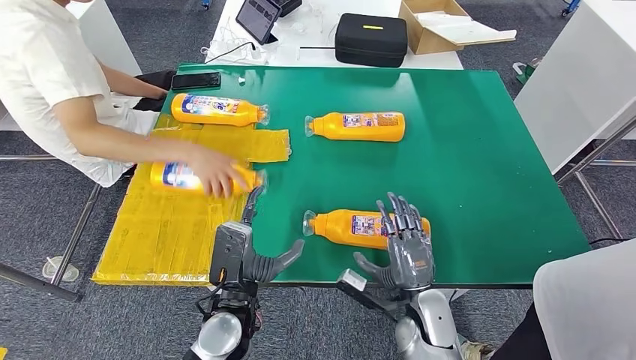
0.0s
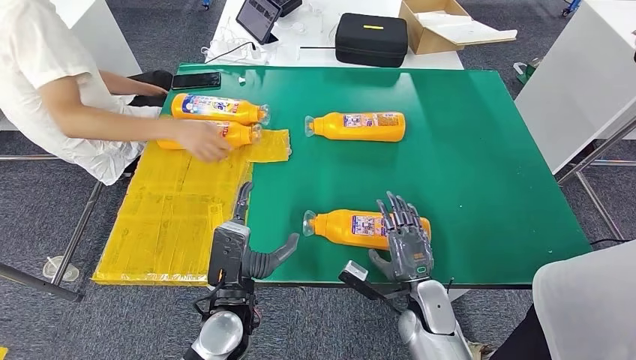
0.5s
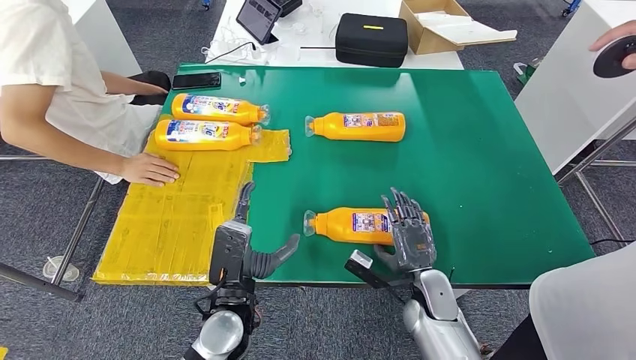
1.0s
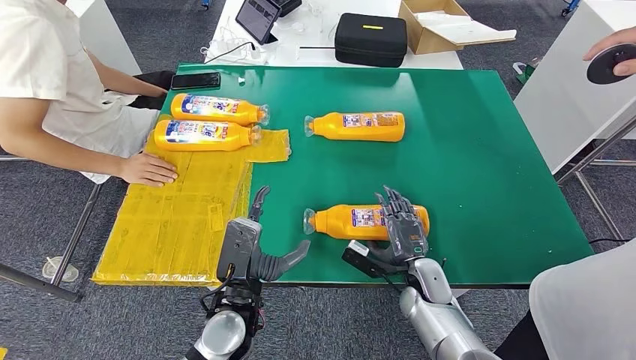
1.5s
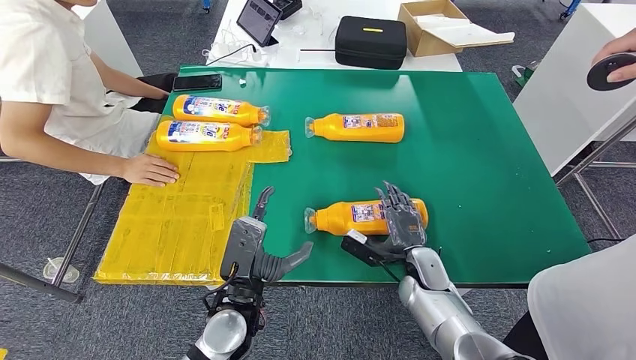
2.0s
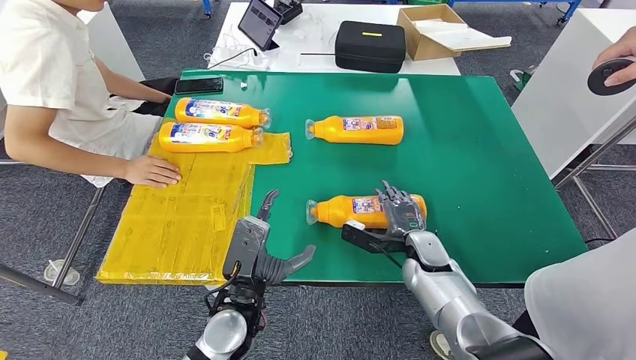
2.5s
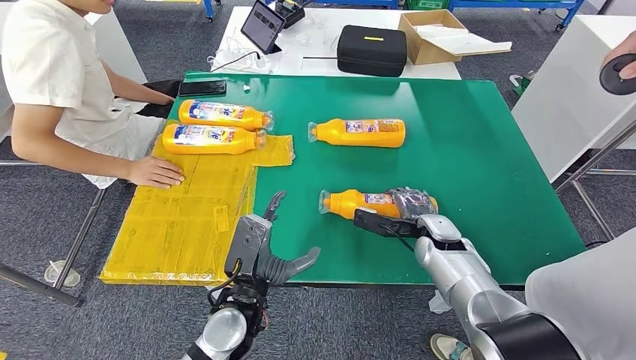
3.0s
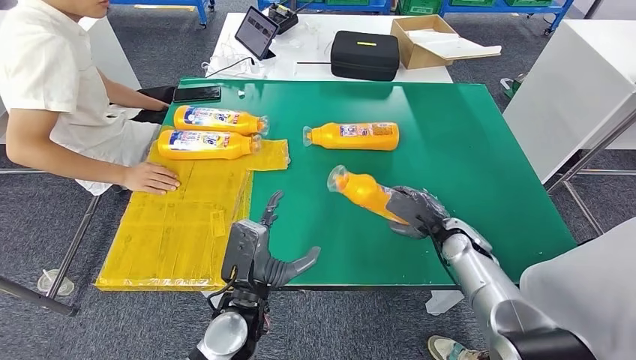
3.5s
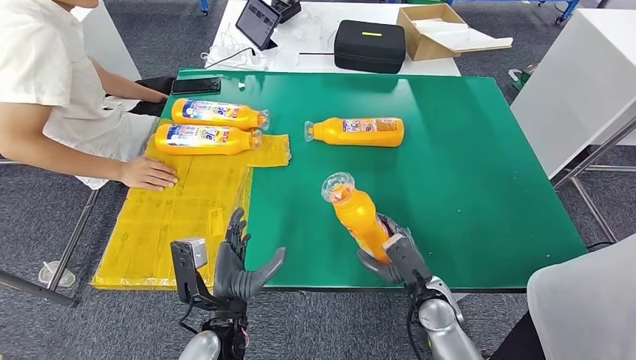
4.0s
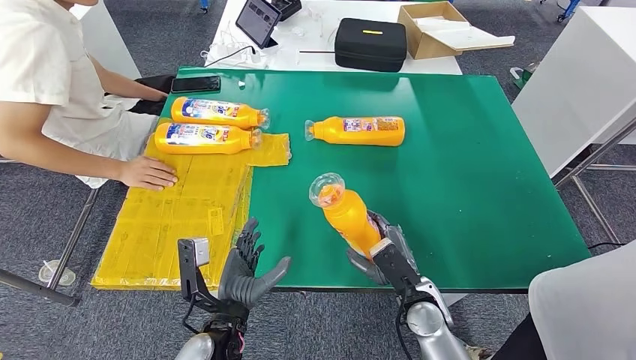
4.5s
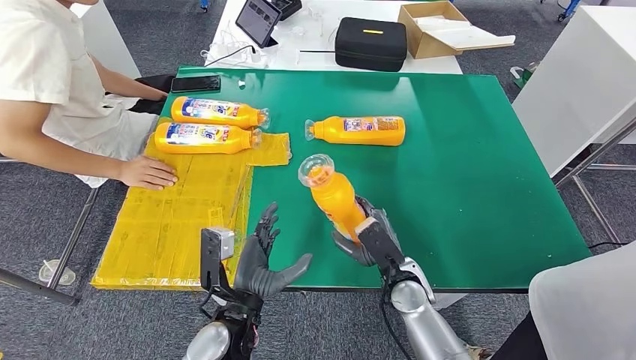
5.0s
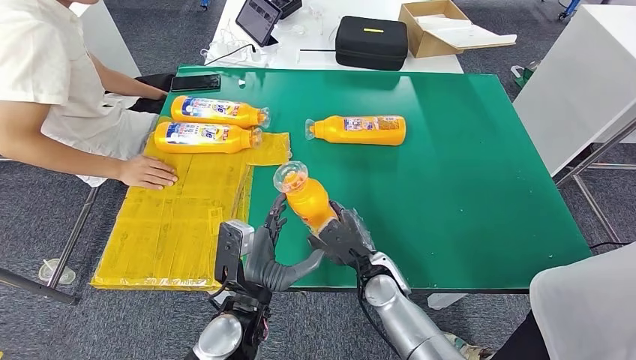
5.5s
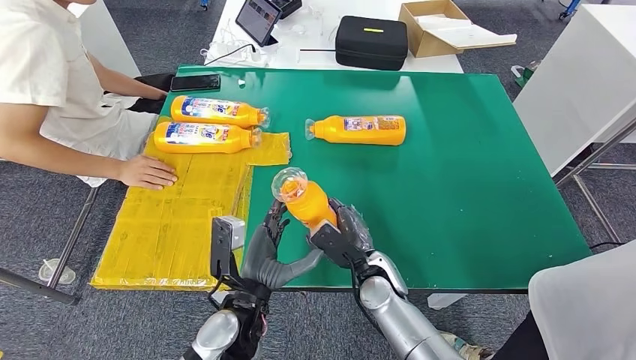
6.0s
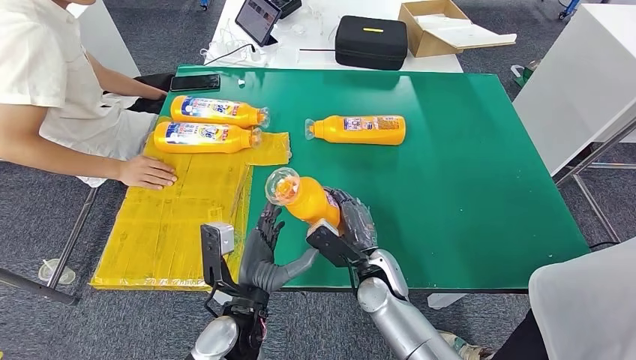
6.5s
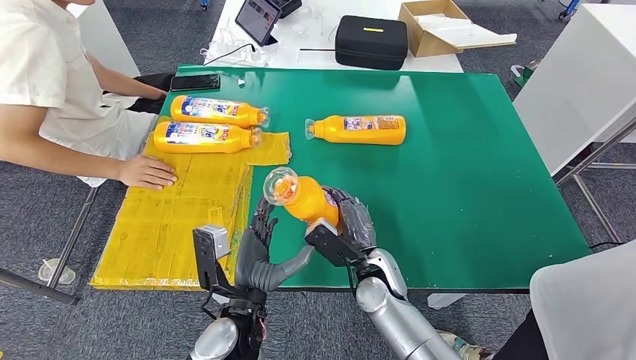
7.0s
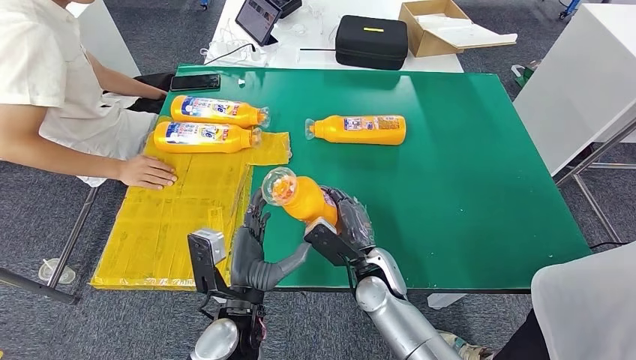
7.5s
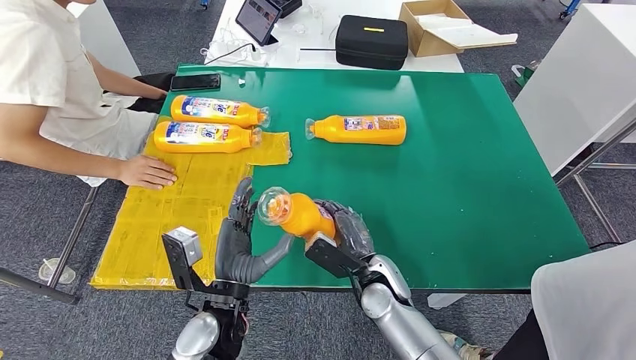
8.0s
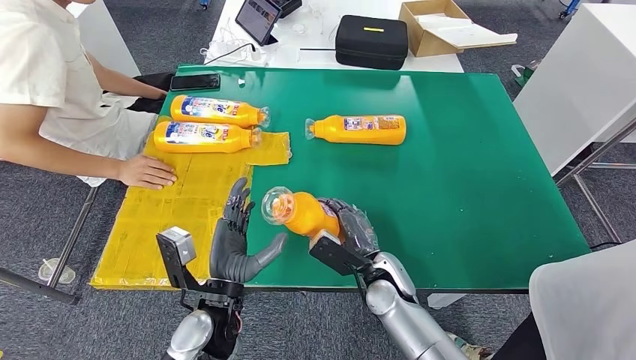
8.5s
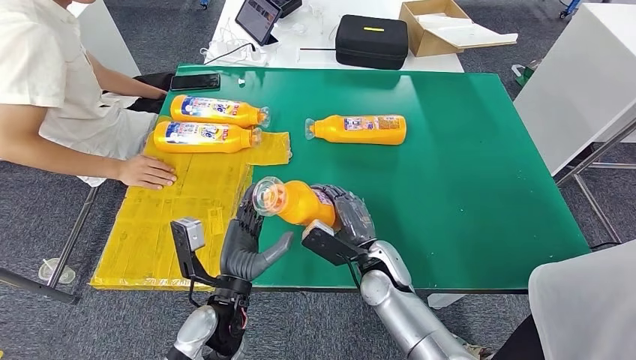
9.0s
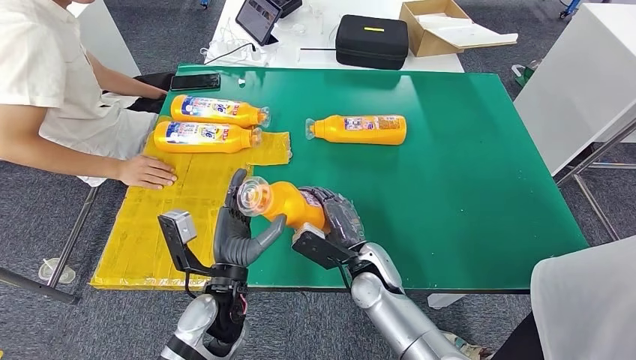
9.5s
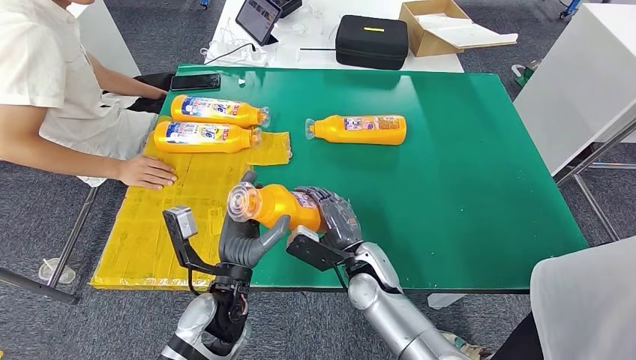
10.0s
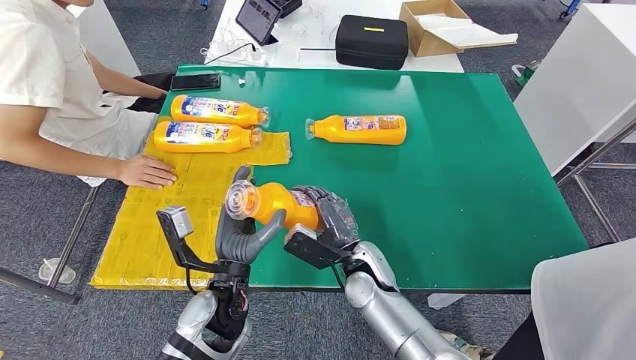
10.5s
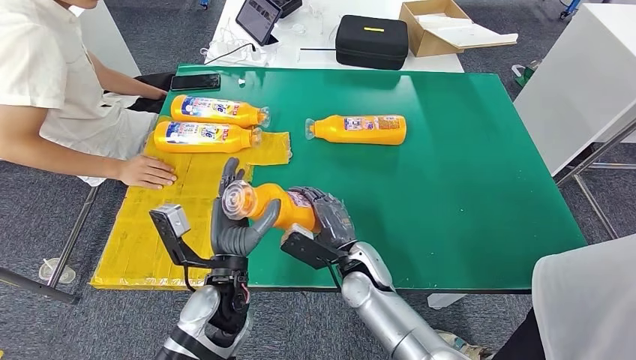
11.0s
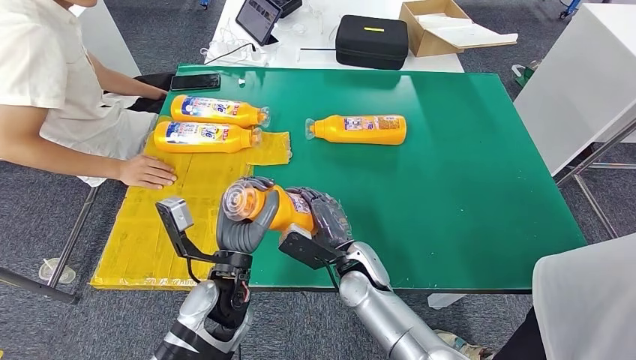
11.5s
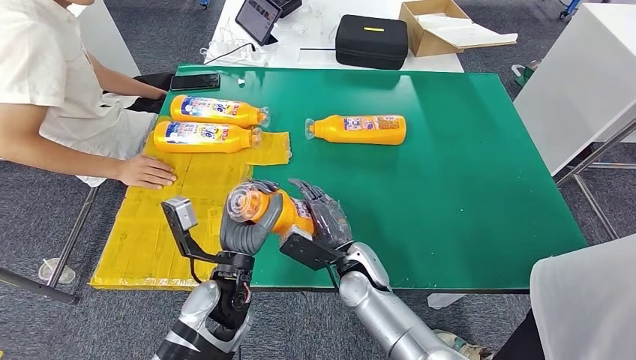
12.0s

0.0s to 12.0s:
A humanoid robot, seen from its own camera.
Step, 0.0s to 4.5s: Pick up the fast-moving consumer goods bottle from the table.
0.0s to 2.0s: The right hand heads forward, covering about 10 cm.
4.0s to 6.0s: The right hand goes approximately 10 cm to the left.
6.0s to 10.0s: The hands make only small movements.
10.0s to 12.0s: The hands stay close to where they were, moving slightly.

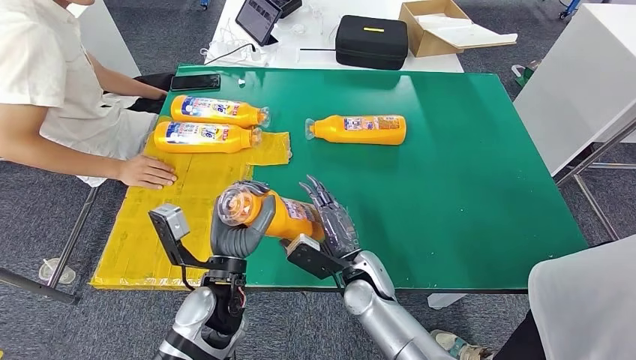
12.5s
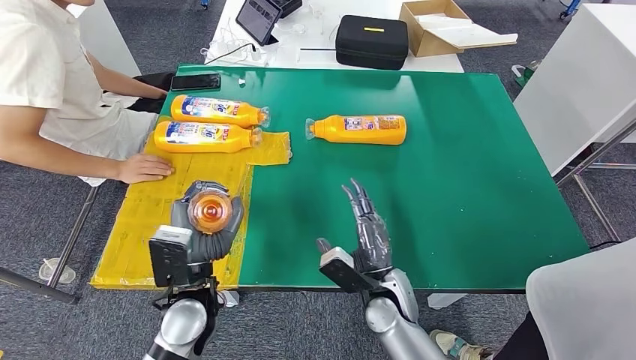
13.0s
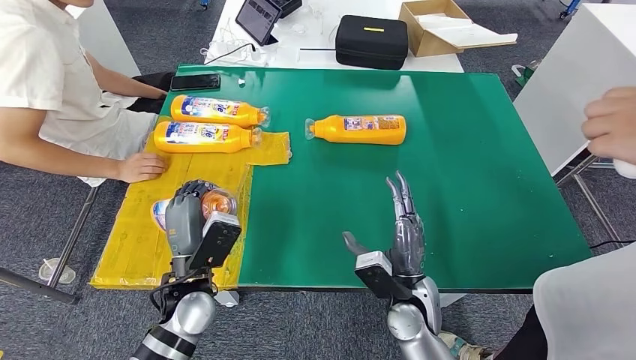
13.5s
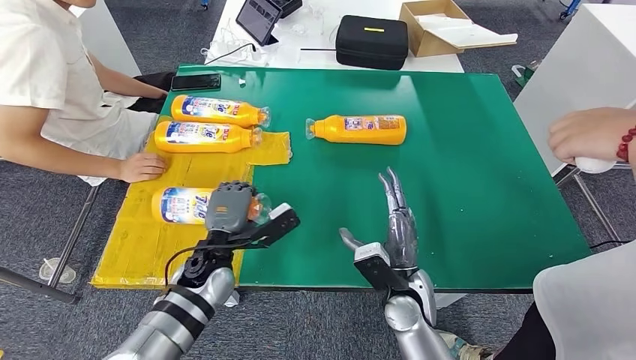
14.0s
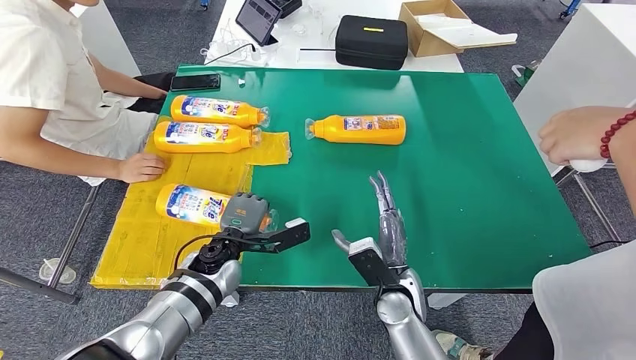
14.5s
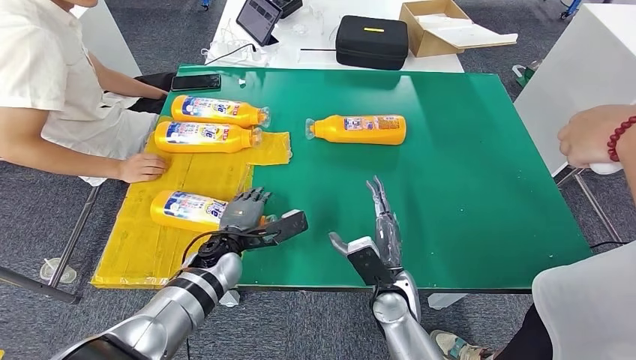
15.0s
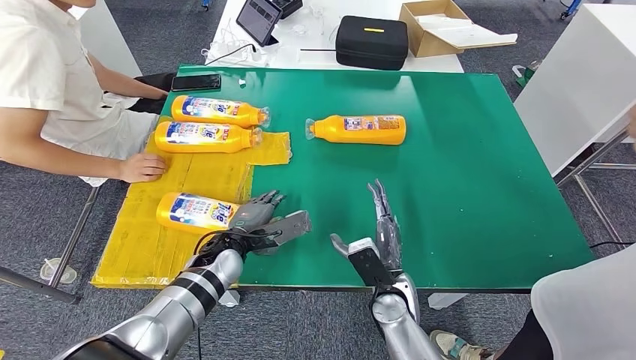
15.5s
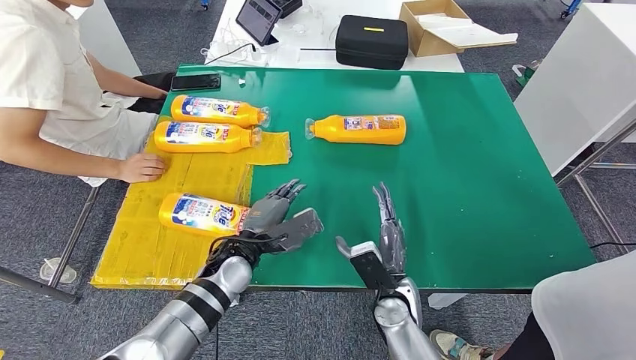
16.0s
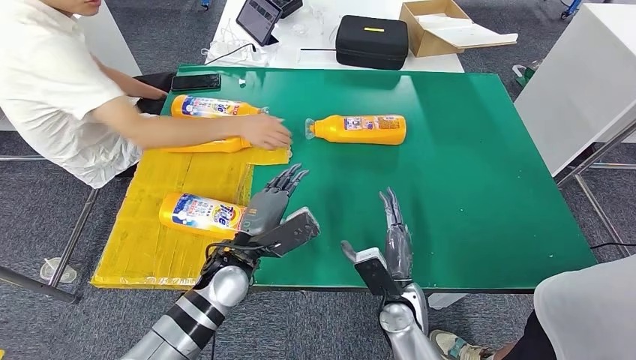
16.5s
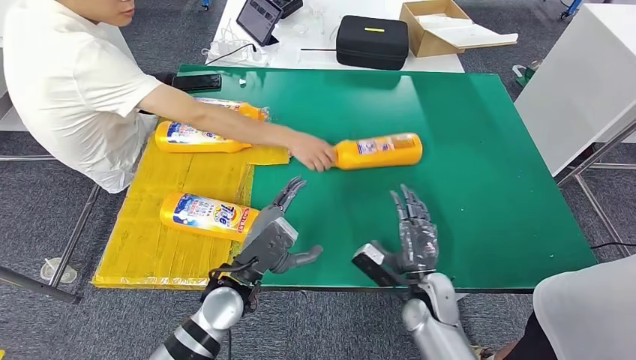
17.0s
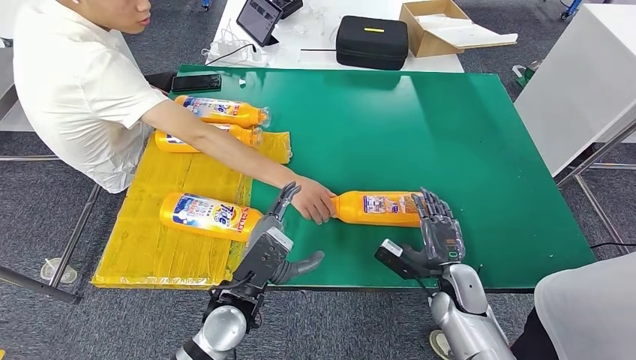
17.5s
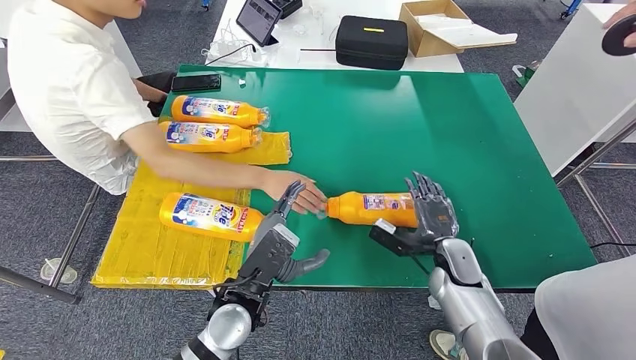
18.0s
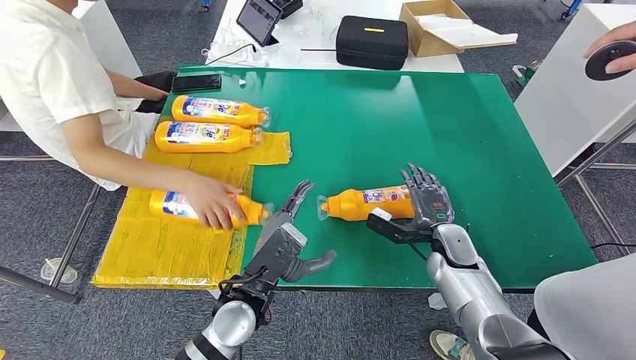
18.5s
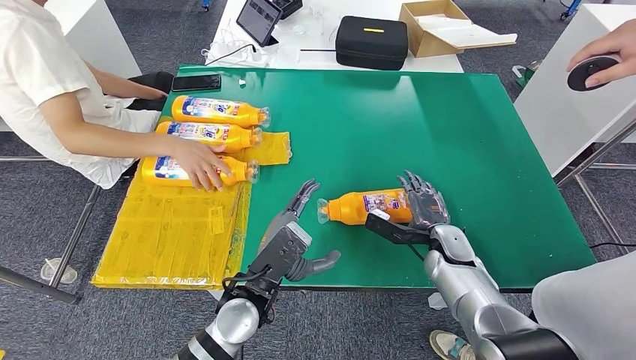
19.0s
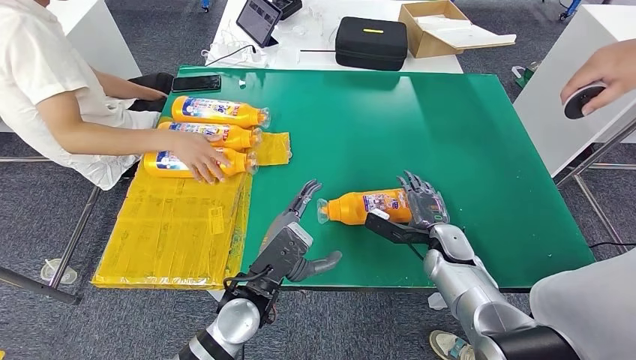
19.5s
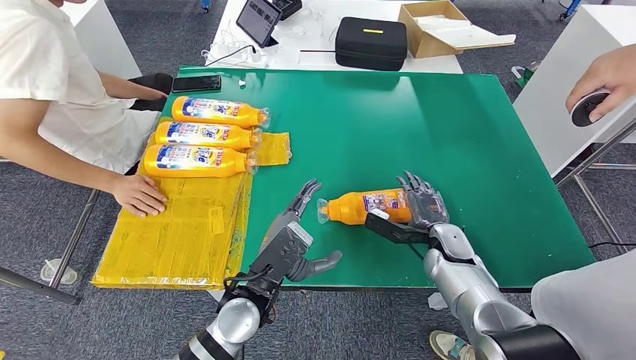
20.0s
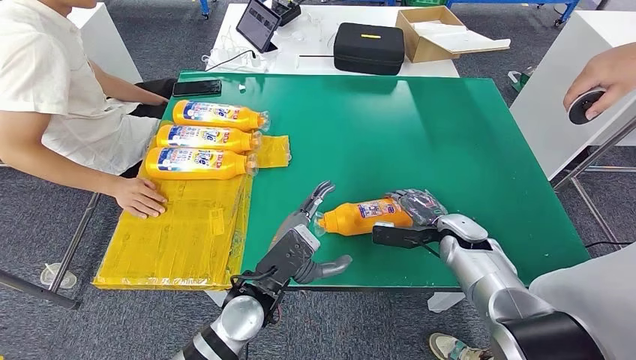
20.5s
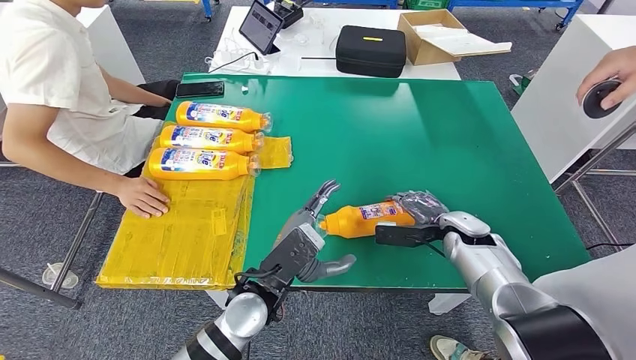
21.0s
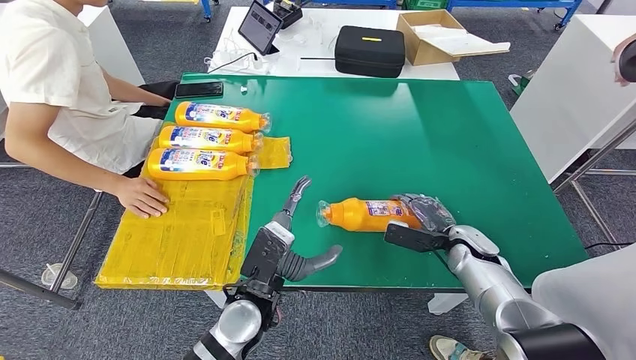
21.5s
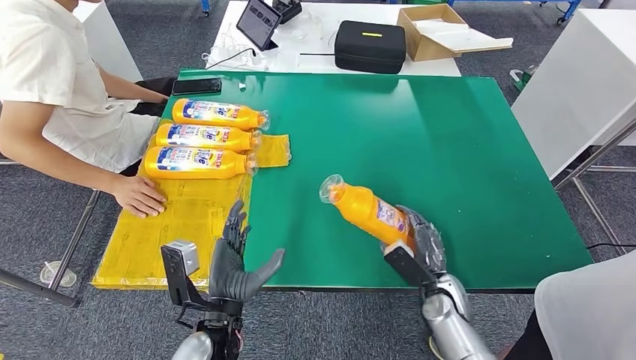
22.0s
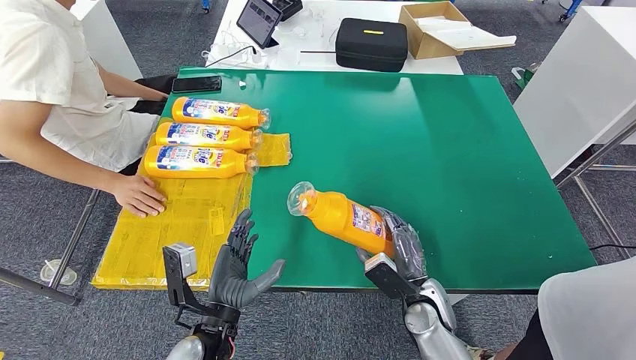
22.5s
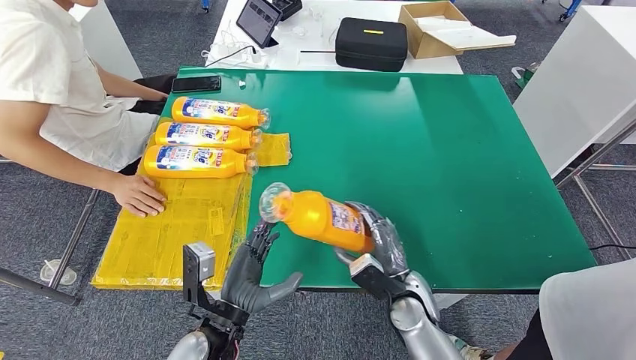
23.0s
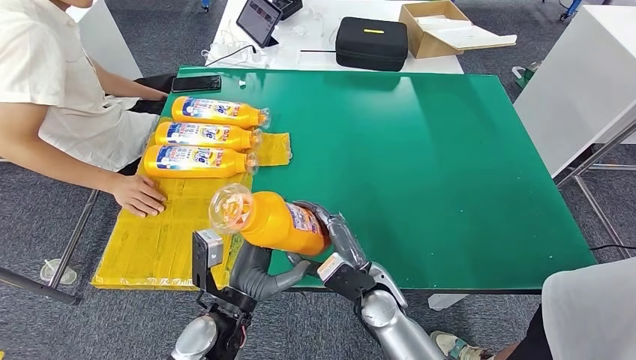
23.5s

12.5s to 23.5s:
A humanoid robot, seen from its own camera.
Step, 12.5s to 14.5s: Flip the fast-moving consumer goods bottle to the front side.
12.5s to 14.5s: The left hand shifts about 10 cm forward and downward. Meanwhile the right hand heads to the right, covering some 5 cm.
